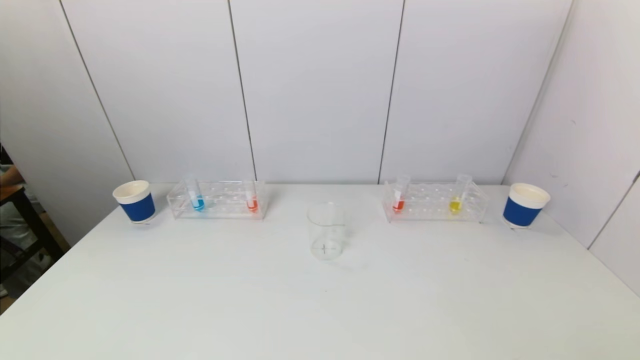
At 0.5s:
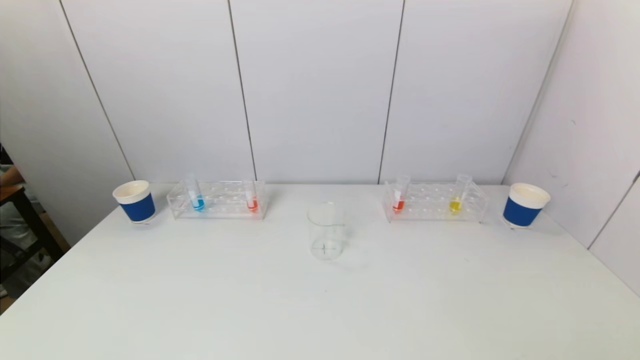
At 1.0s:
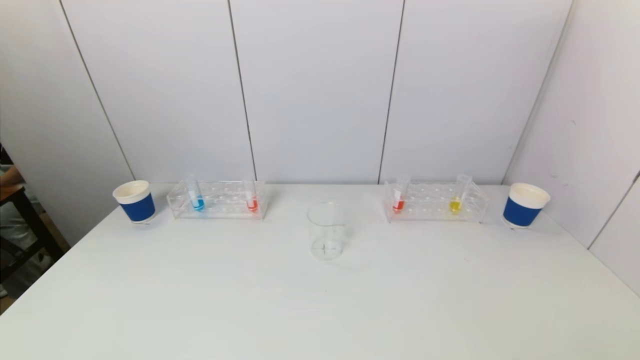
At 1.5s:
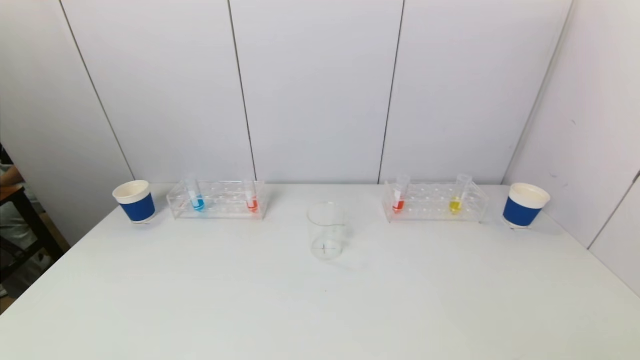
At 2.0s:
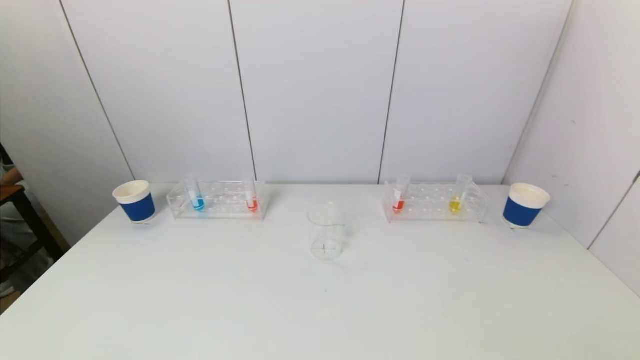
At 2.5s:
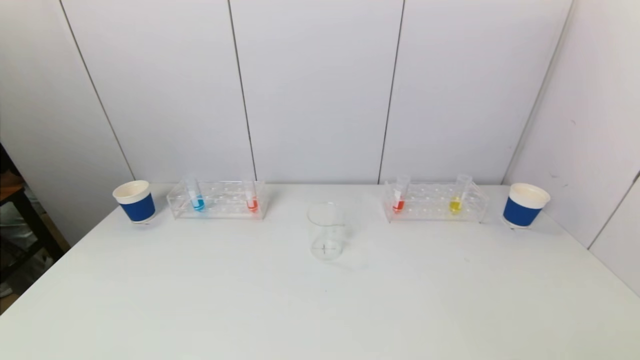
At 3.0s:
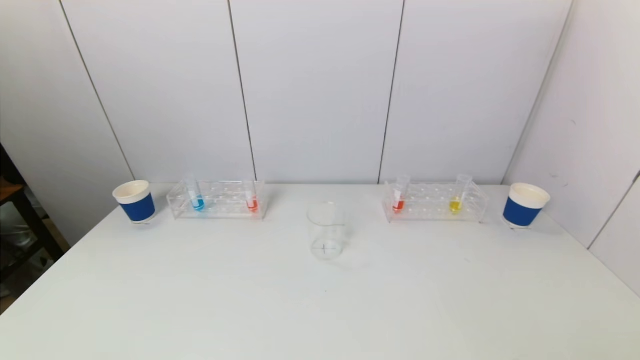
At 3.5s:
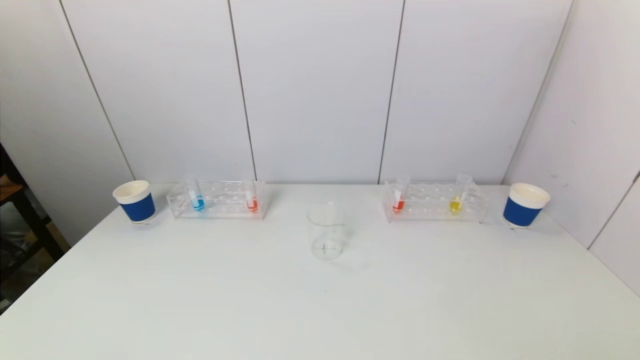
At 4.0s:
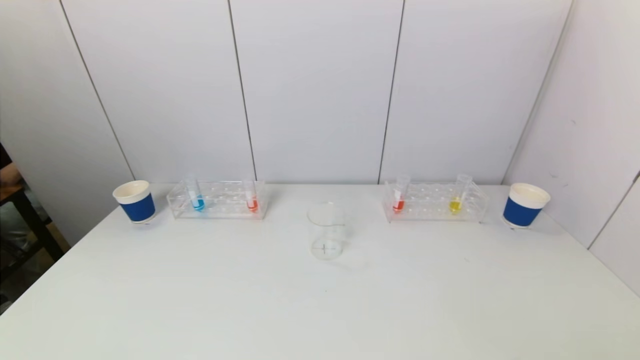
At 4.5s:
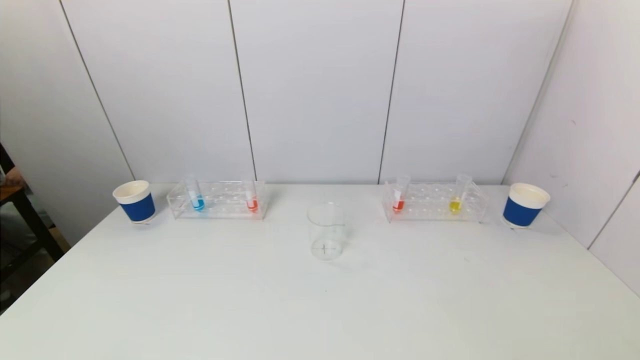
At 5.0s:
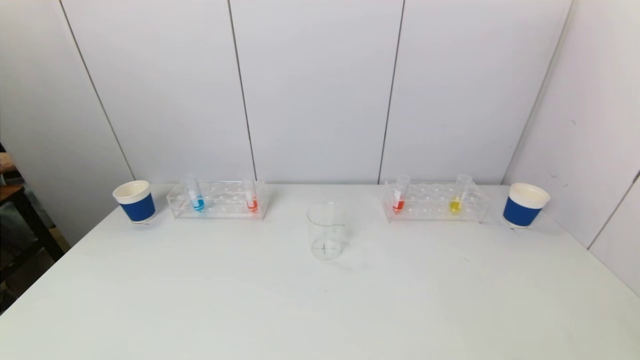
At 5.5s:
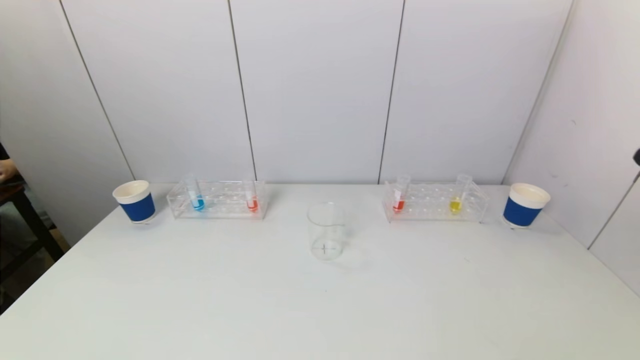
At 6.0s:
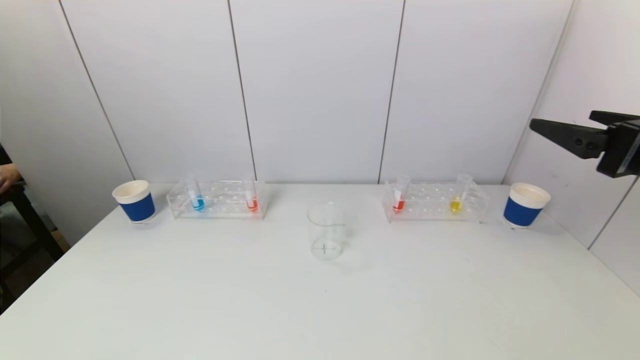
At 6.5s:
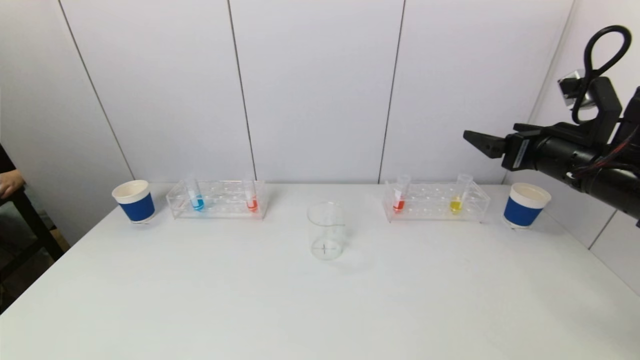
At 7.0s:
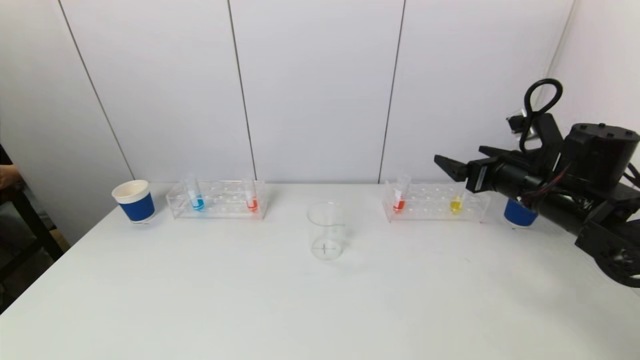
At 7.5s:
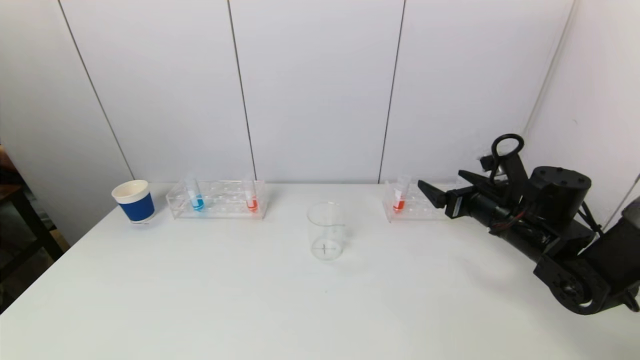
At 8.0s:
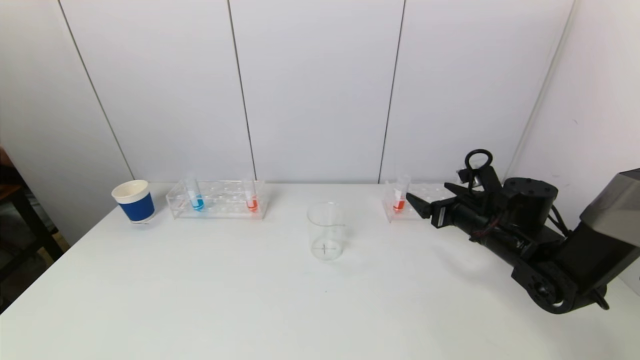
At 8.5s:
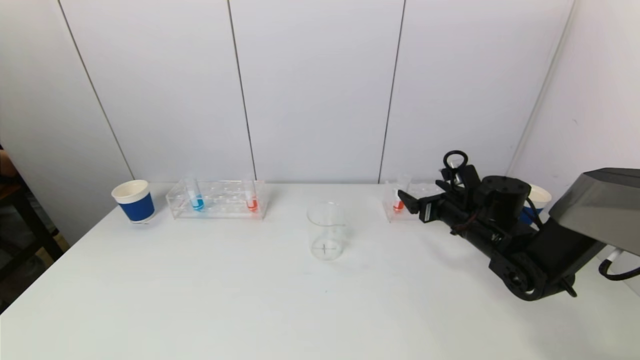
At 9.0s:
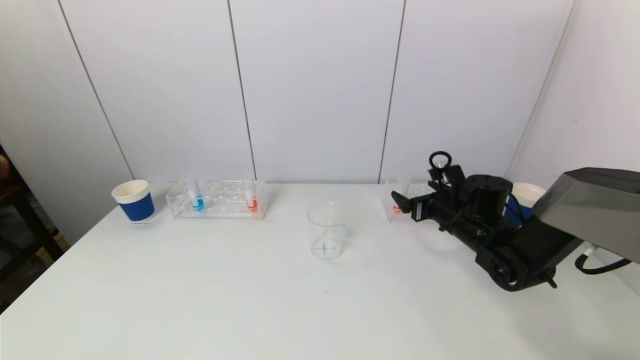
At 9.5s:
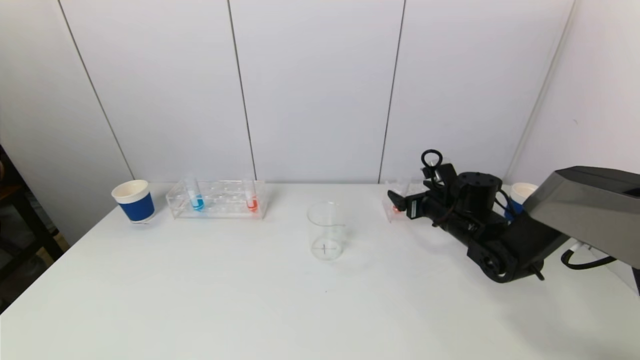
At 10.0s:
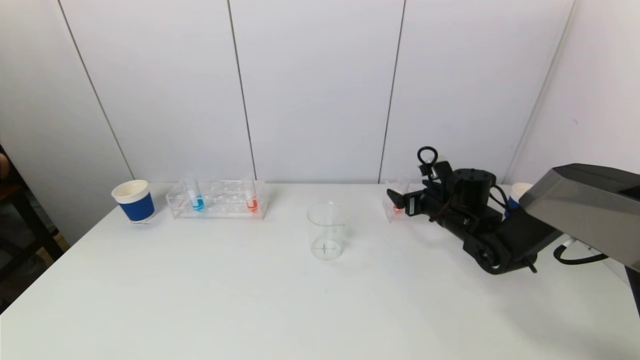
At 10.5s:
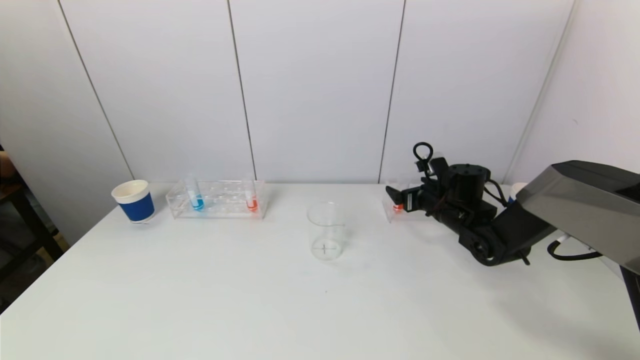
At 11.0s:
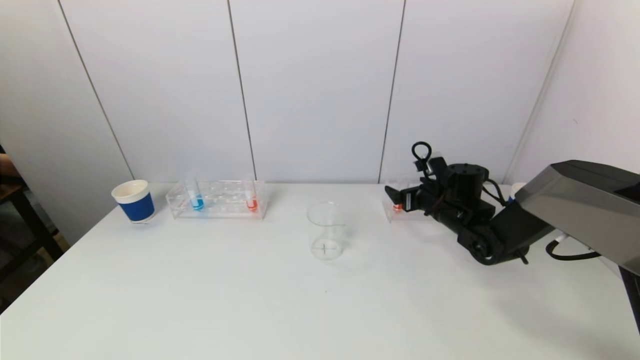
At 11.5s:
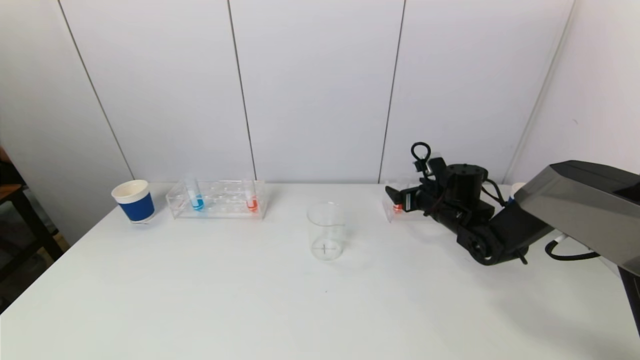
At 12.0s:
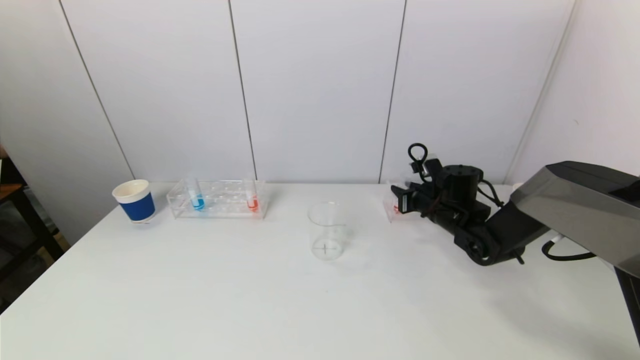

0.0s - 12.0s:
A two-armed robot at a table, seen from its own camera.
Task of the whole recording: pick up a test tube with pigment on left test tube rack and a test tube with pigment on right test tube rack by grippers and pour them into the beaker.
0.0s - 4.0s: The two grippers keep their place.
4.0s - 6.0s: The right gripper travels forward and upward by approximately 30 cm.
6.0s - 8.0s: The right gripper shifts approximately 25 cm downward and forward.
8.0s - 10.0s: The right gripper travels forward by roughly 5 cm.
10.0s - 12.0s: The right gripper closes.

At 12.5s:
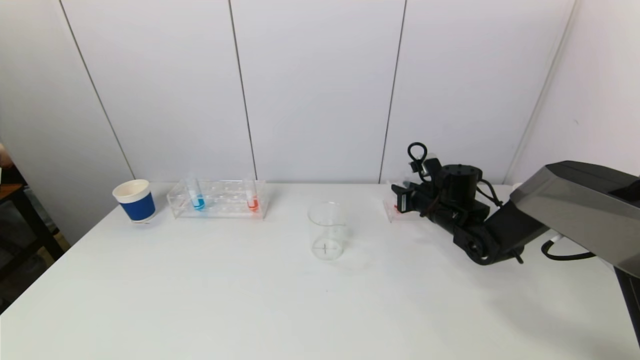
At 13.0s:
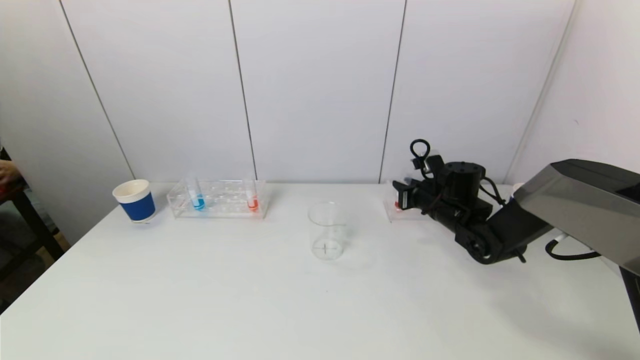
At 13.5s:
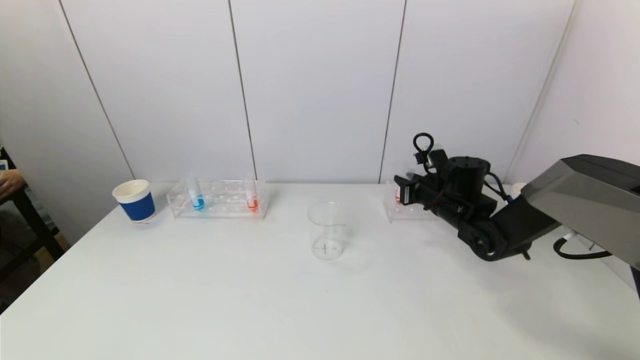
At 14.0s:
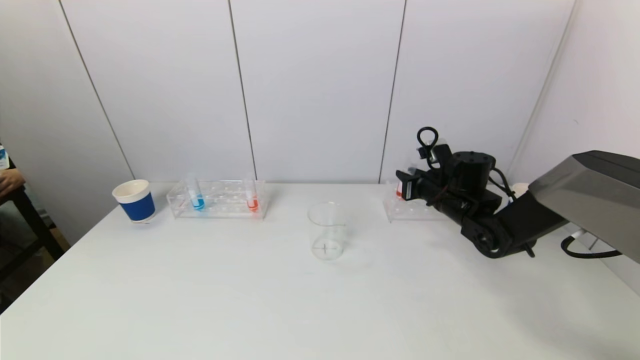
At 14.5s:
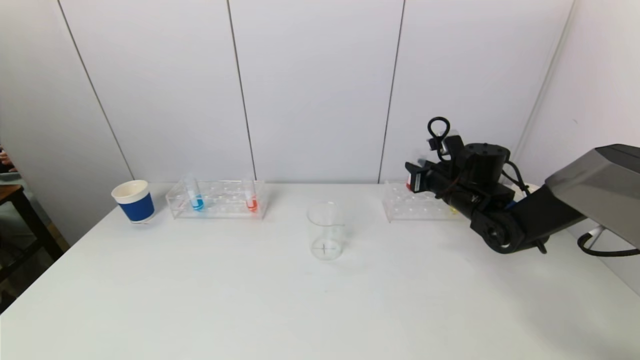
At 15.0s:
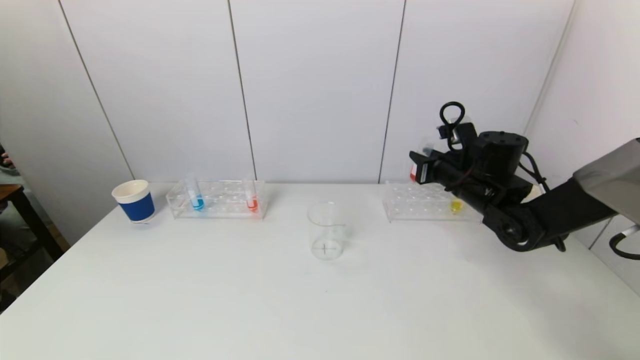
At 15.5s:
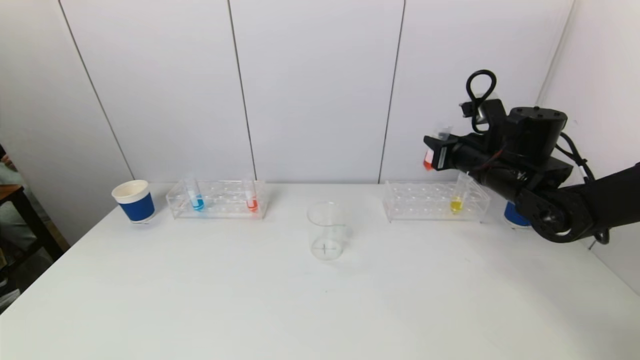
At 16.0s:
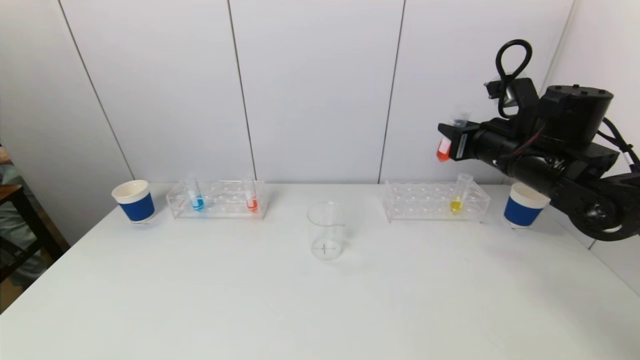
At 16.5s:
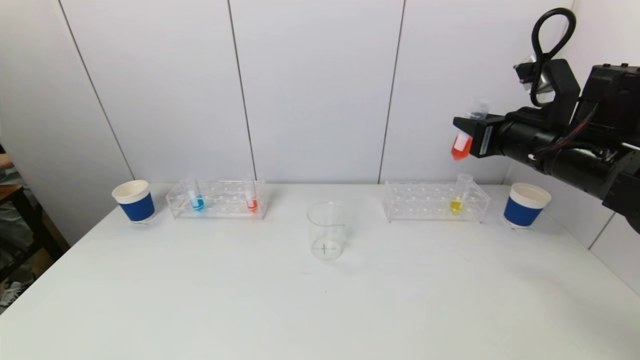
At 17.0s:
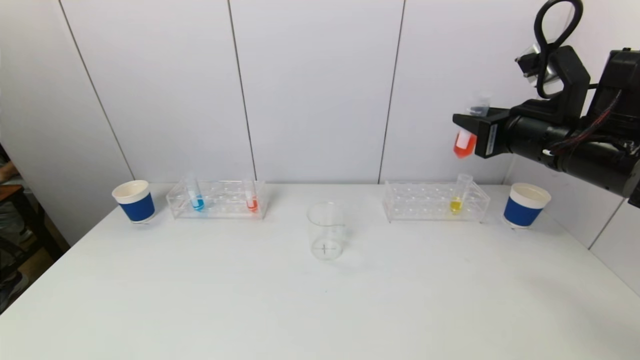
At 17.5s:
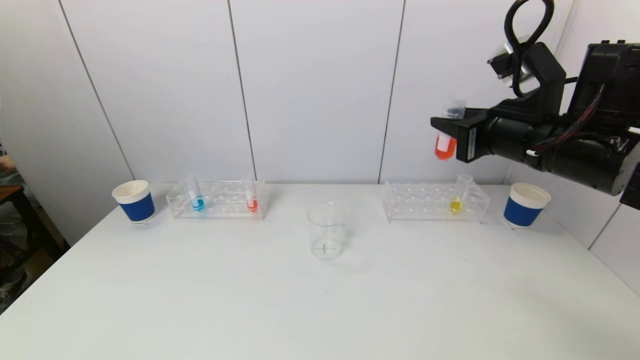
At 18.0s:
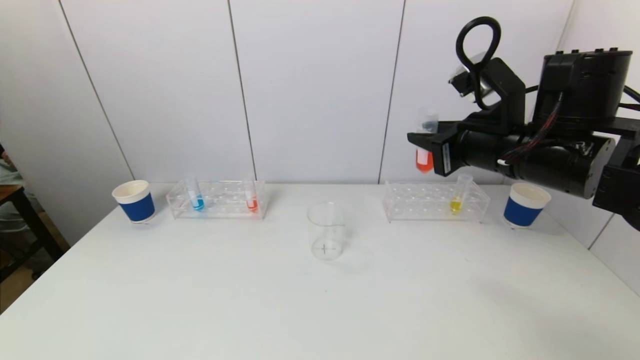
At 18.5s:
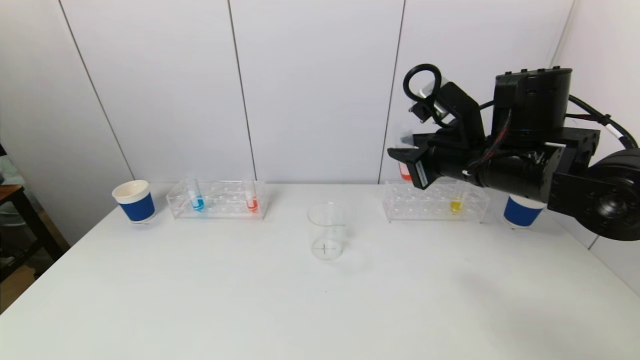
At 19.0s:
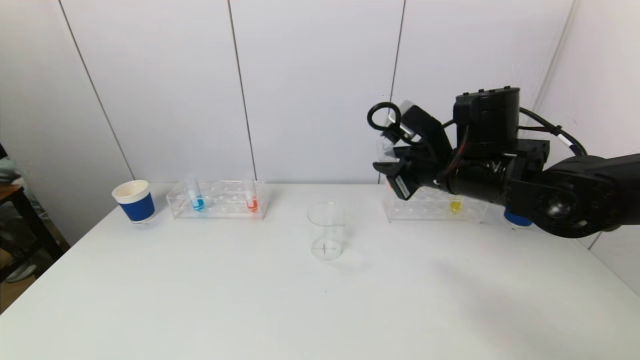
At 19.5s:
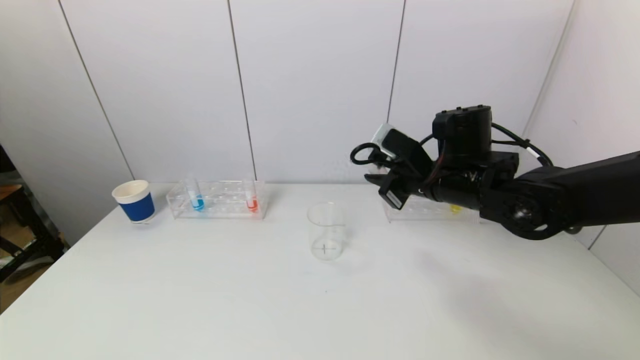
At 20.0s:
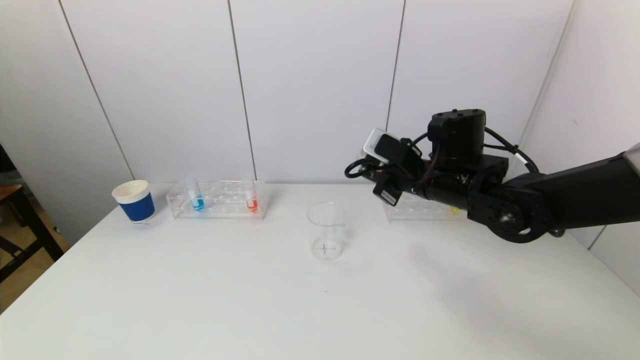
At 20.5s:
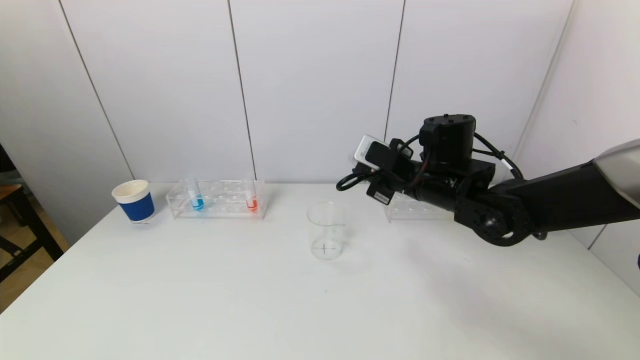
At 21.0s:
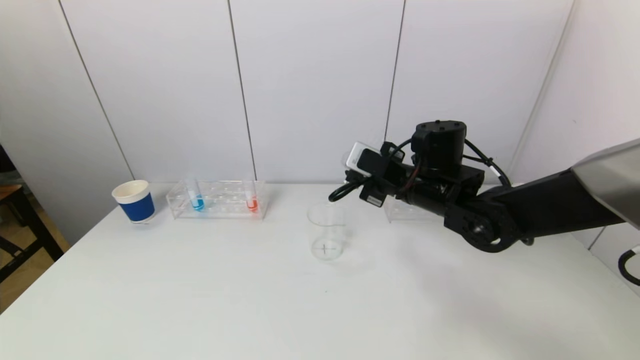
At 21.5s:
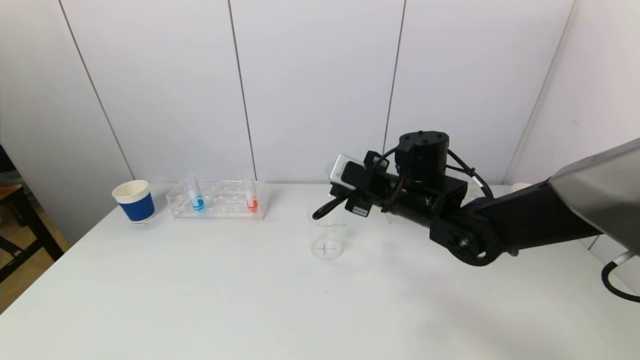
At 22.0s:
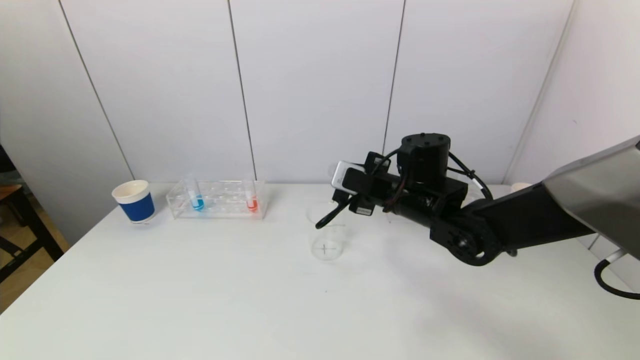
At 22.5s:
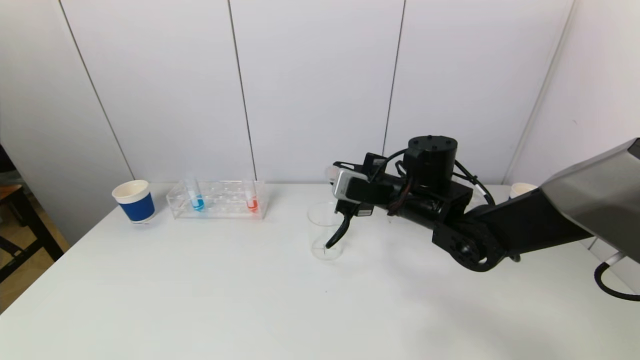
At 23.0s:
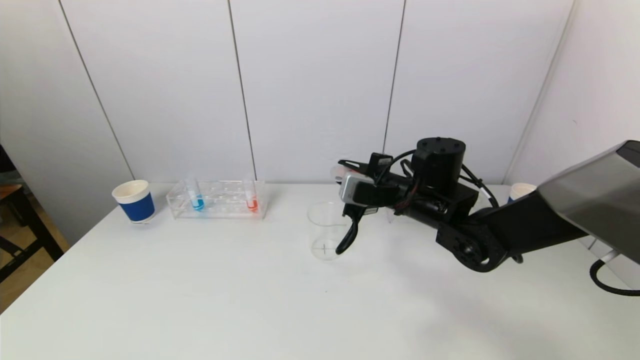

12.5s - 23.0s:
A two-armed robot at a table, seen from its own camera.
Task of the whole recording: pick up a test tube with pigment on left test tube rack and a test tube with pigment on right test tube rack by grippers and pour them into the beaker.
12.5s - 14.5s: The right gripper moves upward, roughly 5 cm.
14.5s - 16.5s: The right gripper shifts about 20 cm upward and backward.
16.5s - 19.0s: The right gripper heads to the left, covering about 10 cm.
19.0s - 21.0s: The right gripper moves some 5 cm.
21.0s - 23.0s: The grippers make only small movements.
